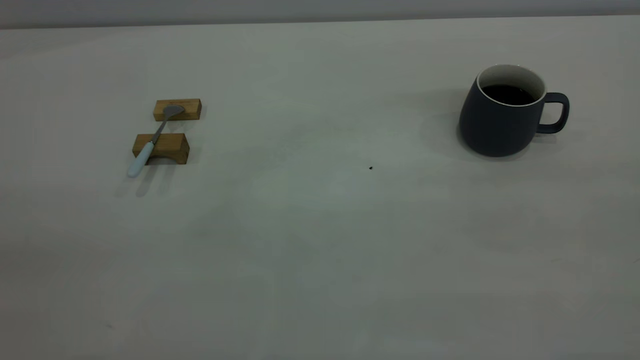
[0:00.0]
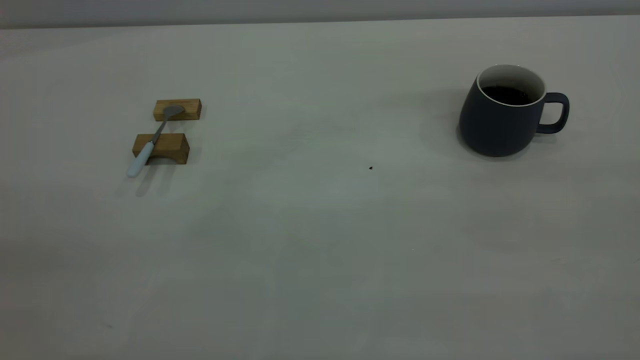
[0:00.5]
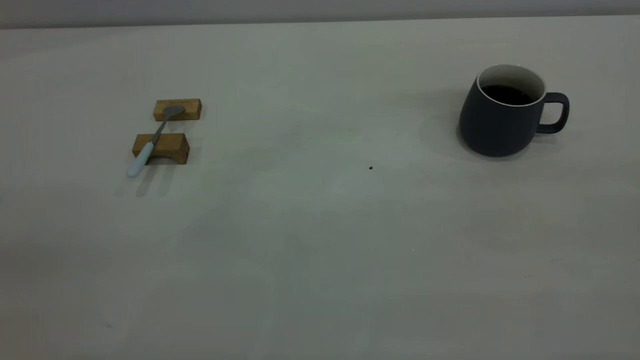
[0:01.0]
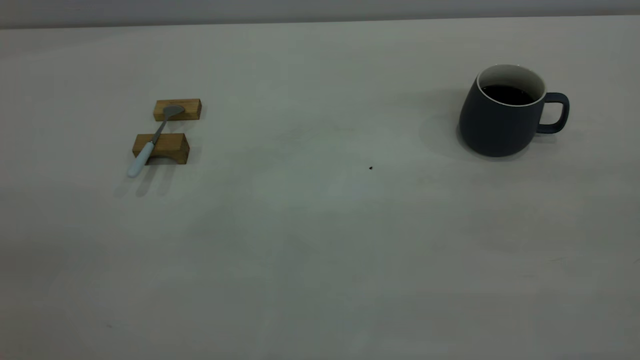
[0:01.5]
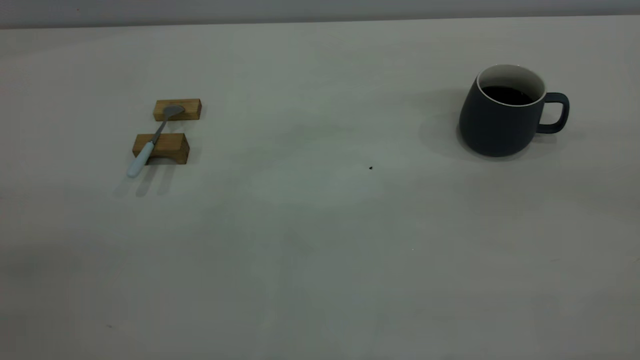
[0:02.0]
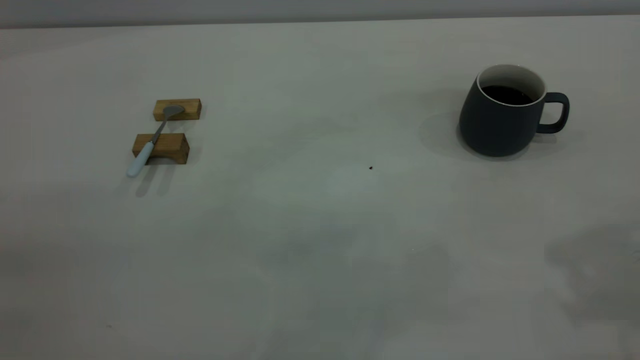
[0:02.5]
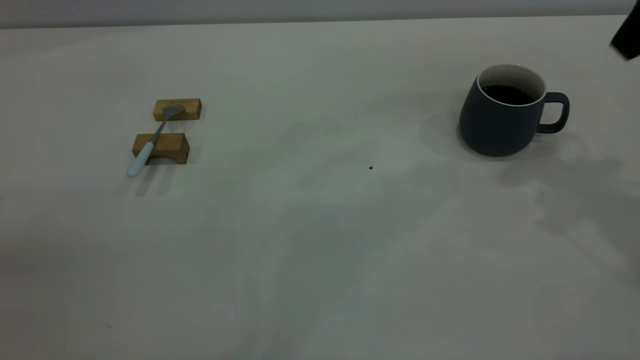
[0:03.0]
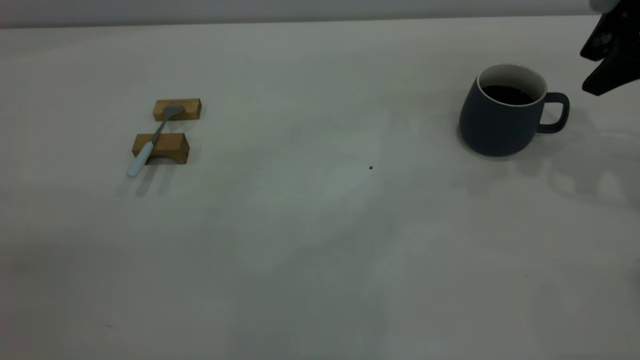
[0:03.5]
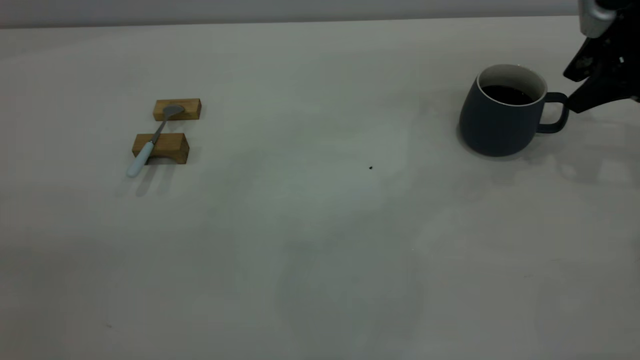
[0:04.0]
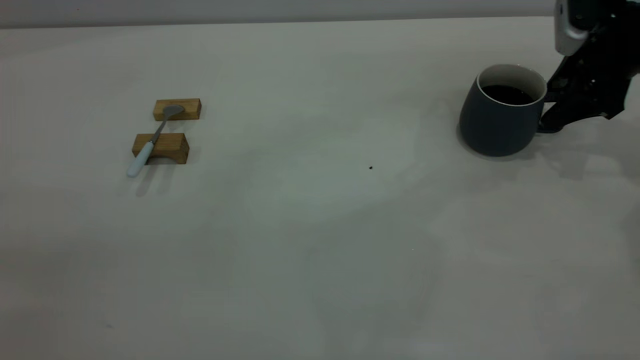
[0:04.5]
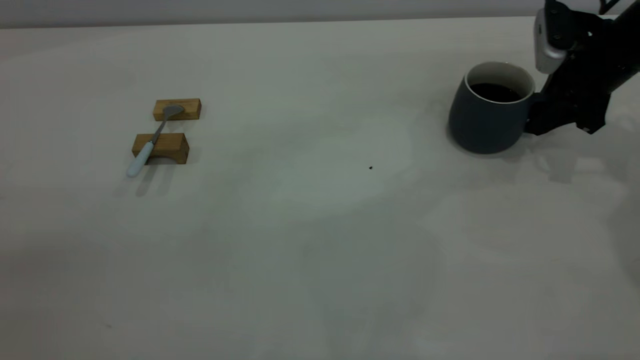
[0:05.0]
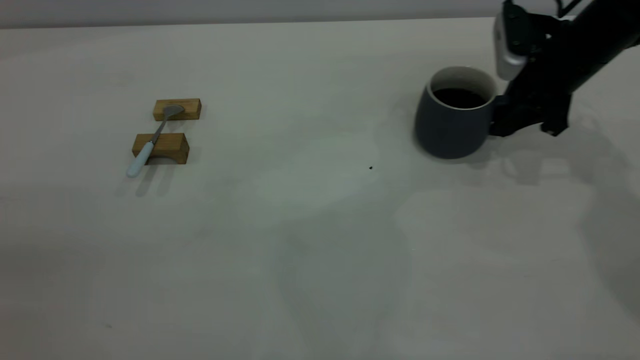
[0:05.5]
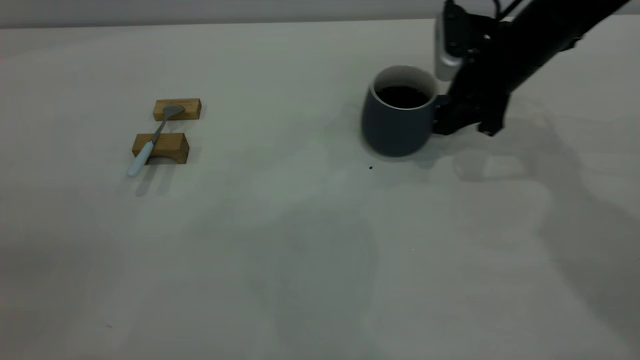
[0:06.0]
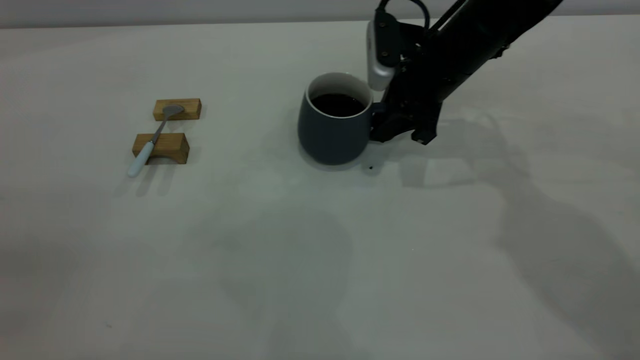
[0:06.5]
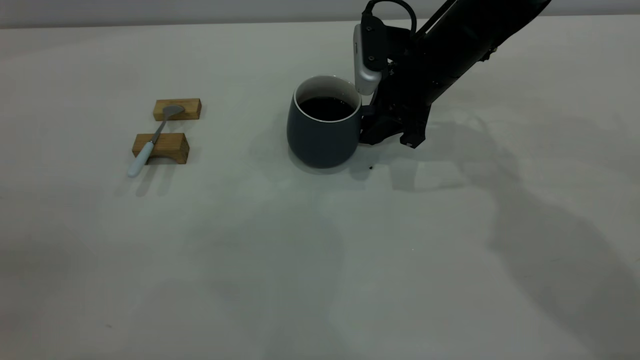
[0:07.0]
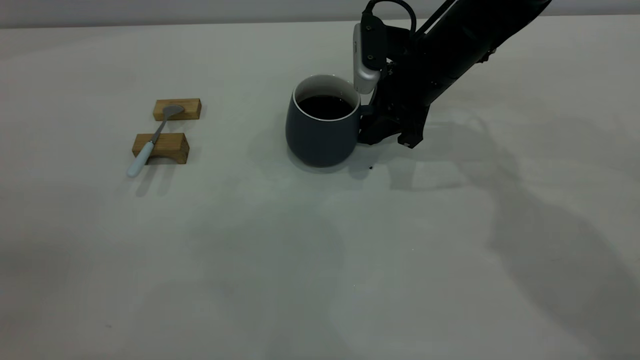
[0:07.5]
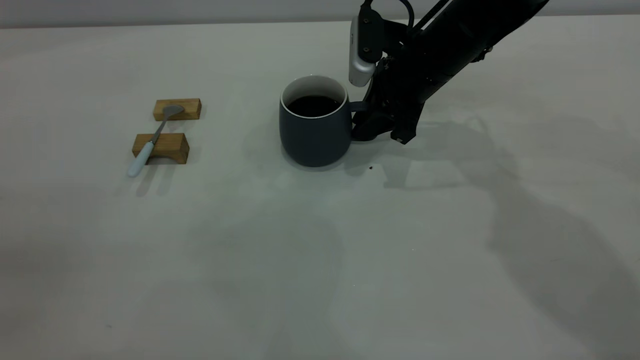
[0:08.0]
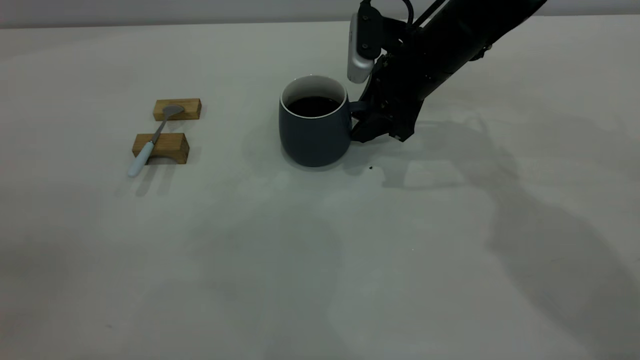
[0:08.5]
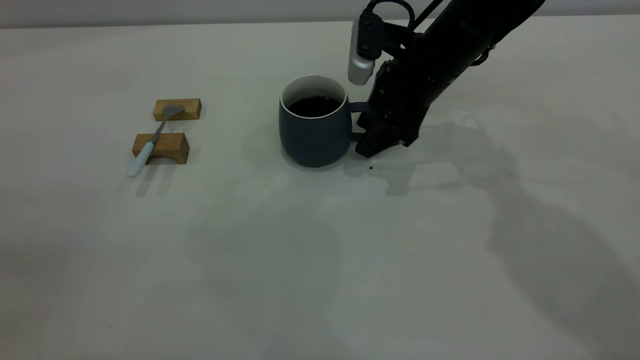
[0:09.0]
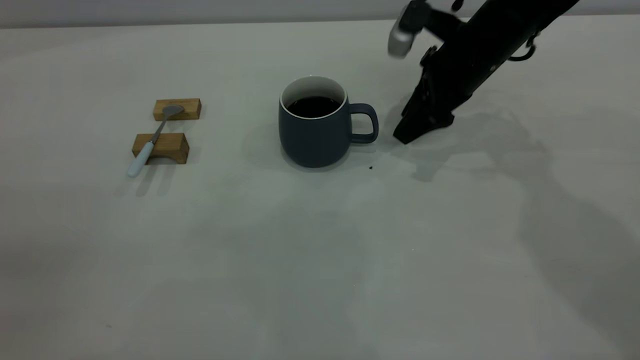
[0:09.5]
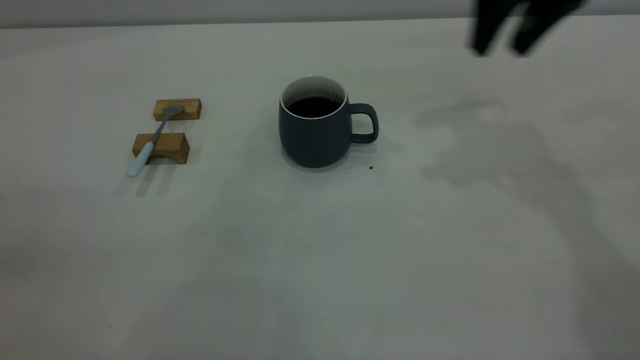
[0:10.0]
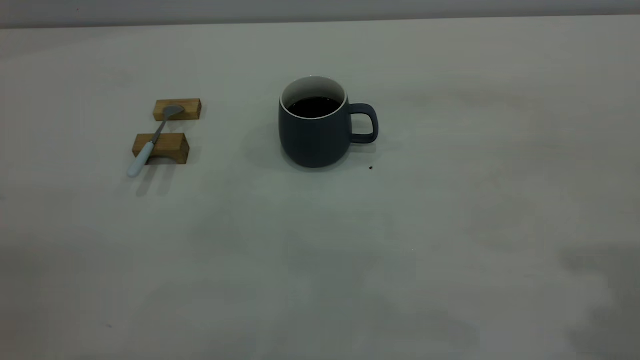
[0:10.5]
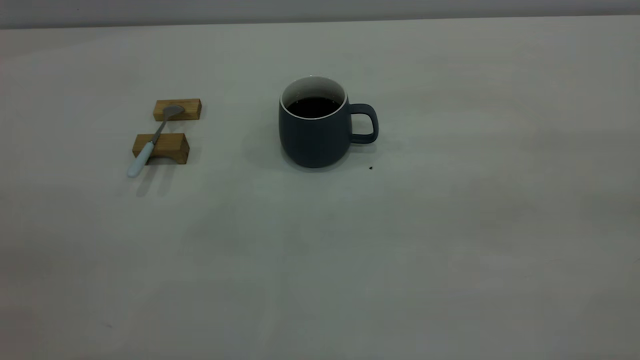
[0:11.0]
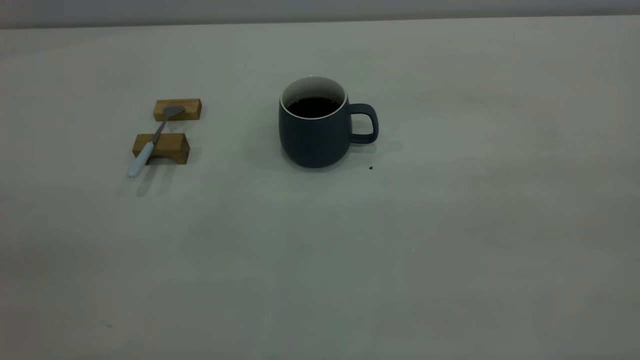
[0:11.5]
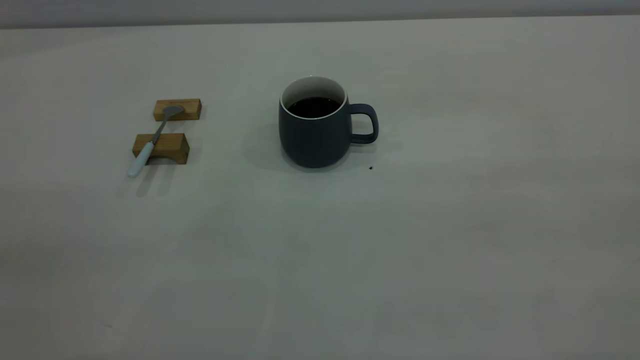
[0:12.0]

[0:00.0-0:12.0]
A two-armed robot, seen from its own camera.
Step, 0:00.0 to 0:09.5: Move the cup with coffee to the center of view.
0:02.0 to 0:04.0: The right gripper travels forward and downward by roughly 40 cm.
0:04.0 to 0:06.0: The right gripper goes about 15 cm to the left, and closes its fingers.
0:06.0 to 0:08.0: The right gripper heads to the left, covering roughly 10 cm.
0:08.0 to 0:10.0: The right gripper shifts approximately 20 cm upward and to the right, and opens up.
0:10.0 to 0:12.0: The right gripper goes some 40 cm backward.

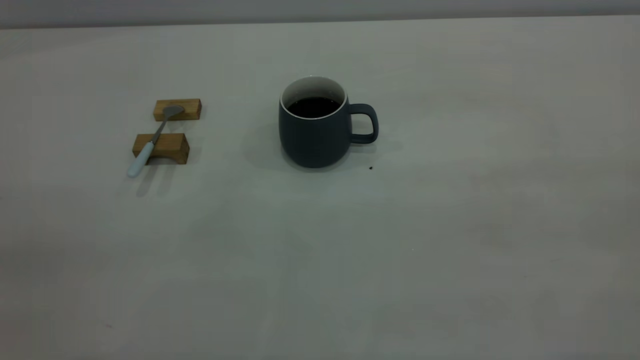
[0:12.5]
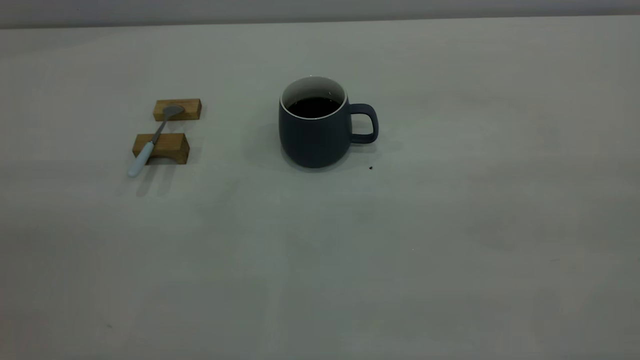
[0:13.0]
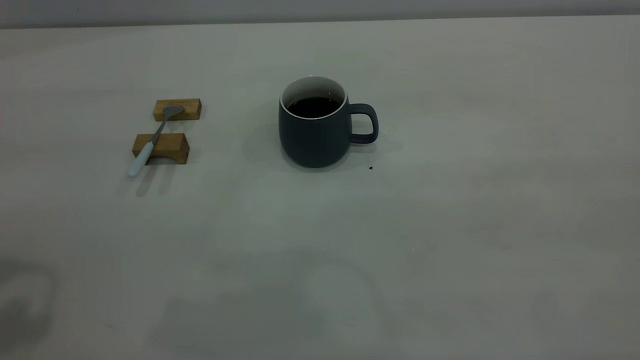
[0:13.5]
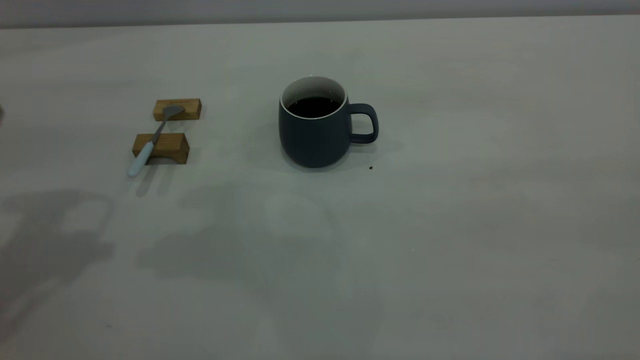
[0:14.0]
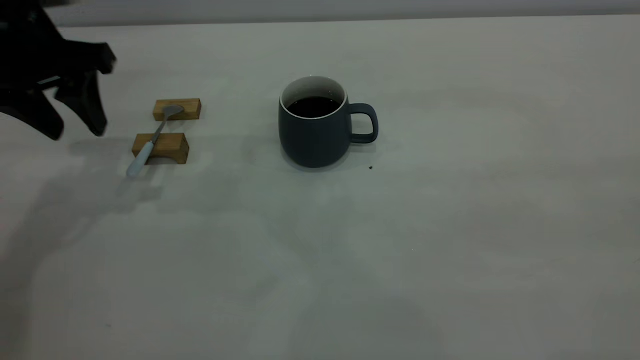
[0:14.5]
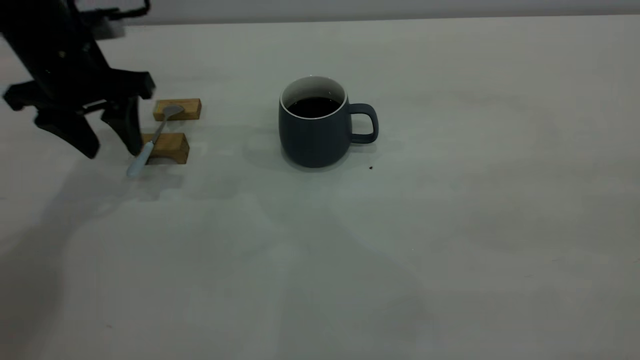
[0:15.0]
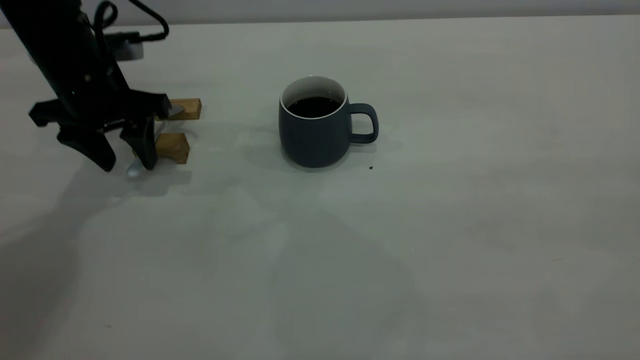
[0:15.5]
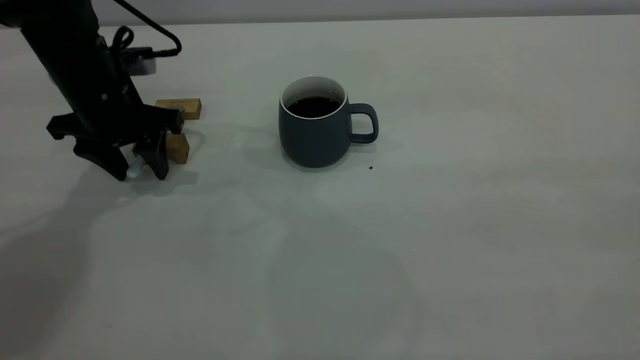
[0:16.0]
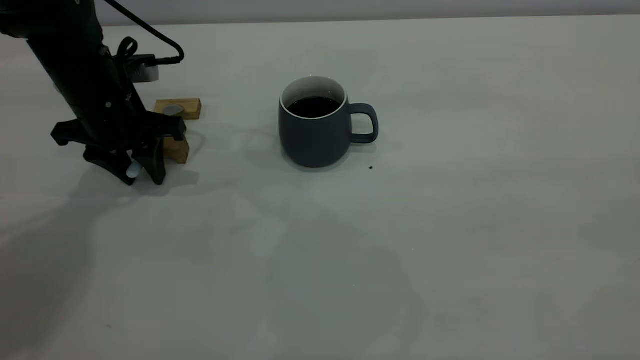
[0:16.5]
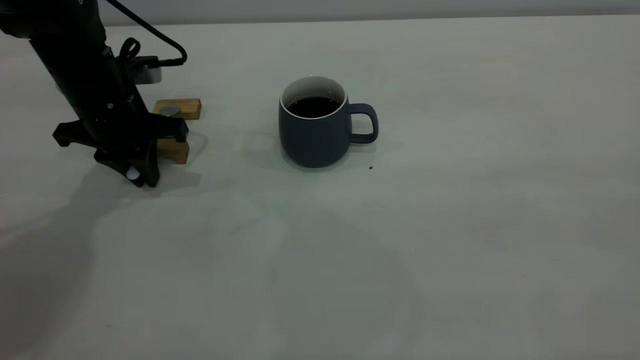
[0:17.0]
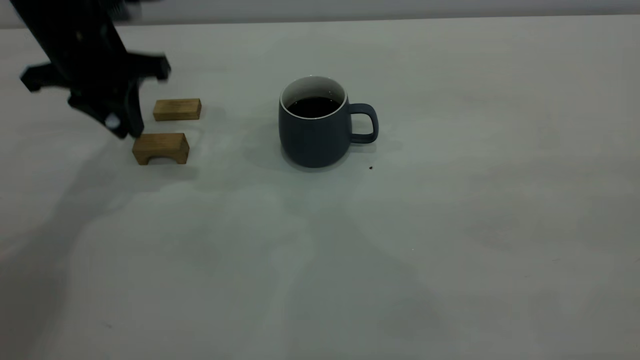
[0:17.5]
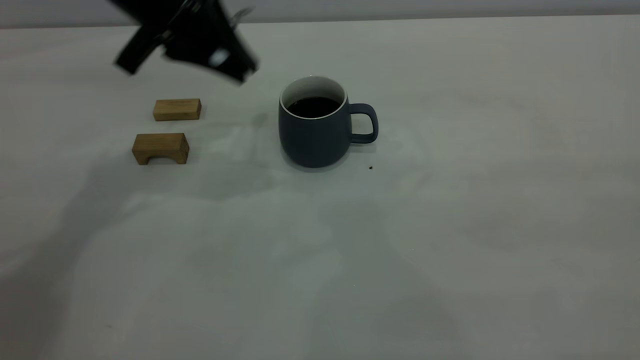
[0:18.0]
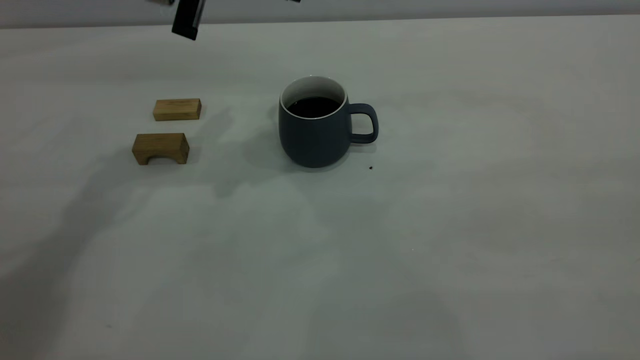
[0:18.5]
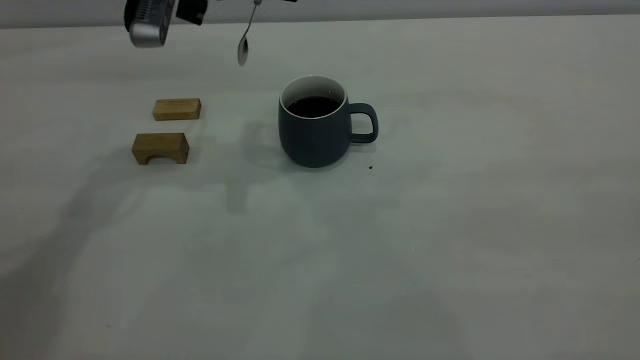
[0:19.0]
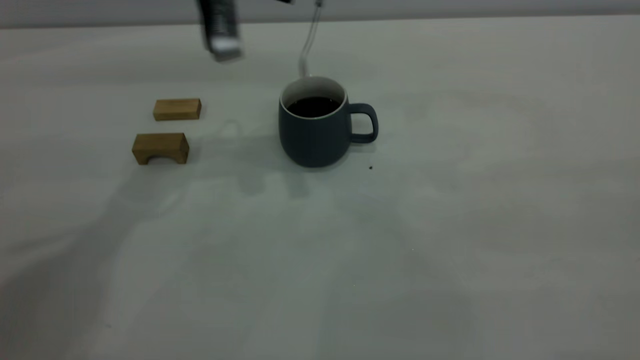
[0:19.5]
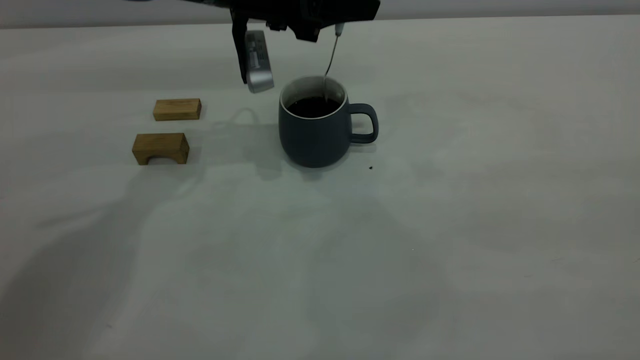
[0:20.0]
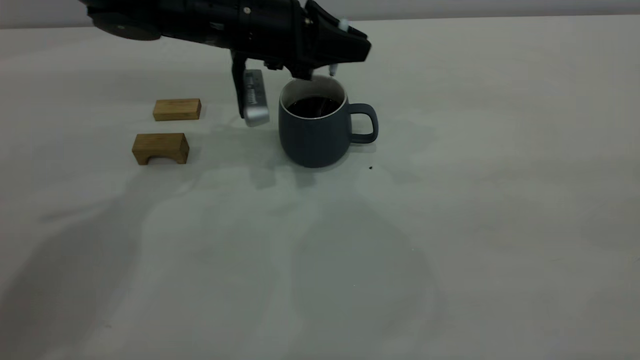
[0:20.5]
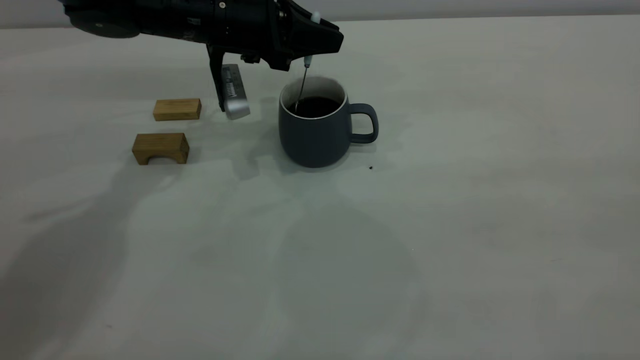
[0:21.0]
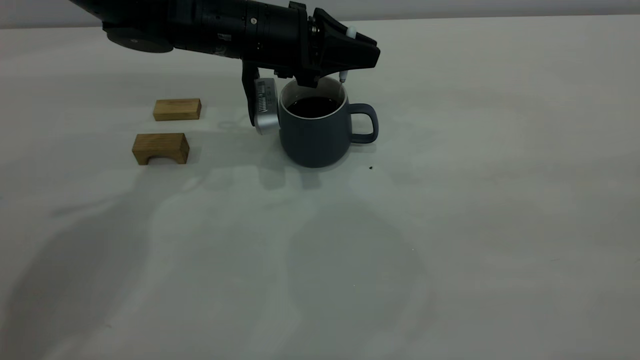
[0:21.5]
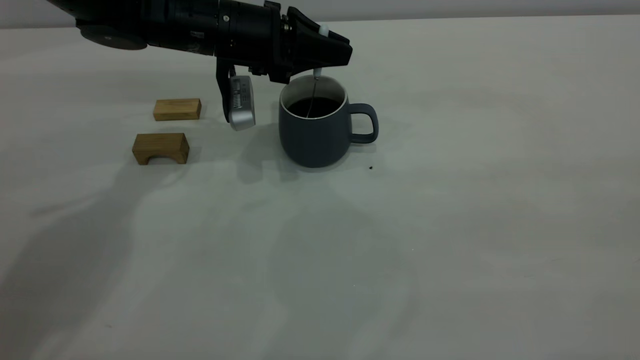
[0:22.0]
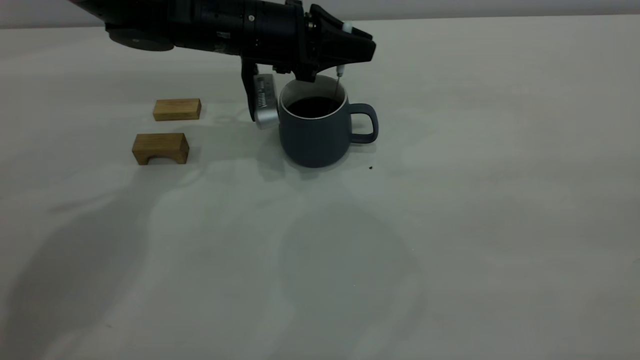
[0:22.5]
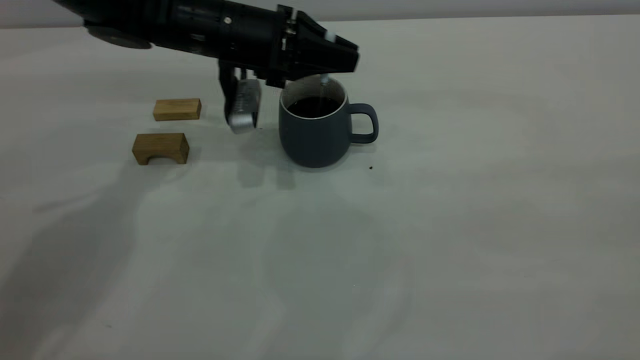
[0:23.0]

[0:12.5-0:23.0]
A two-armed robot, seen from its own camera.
Step, 0:12.5 to 0:17.5: Pick up the spoon.
0:12.5 to 0:14.5: The left gripper goes roughly 40 cm forward and downward, and opens up.
0:14.5 to 0:16.5: The left gripper goes about 10 cm downward.
0:16.5 to 0:19.0: The left gripper is displaced upward and to the right by some 20 cm, and closes.
0:19.0 to 0:21.0: The left gripper moves downward and forward, about 15 cm.
0:21.0 to 0:23.0: The grippers make only small movements.
